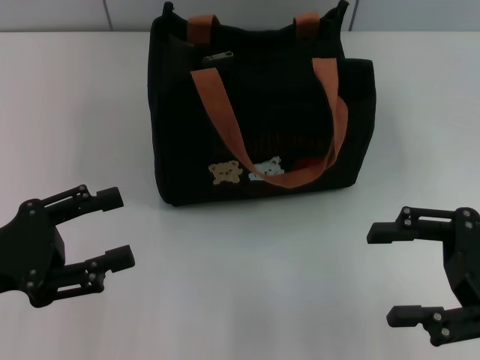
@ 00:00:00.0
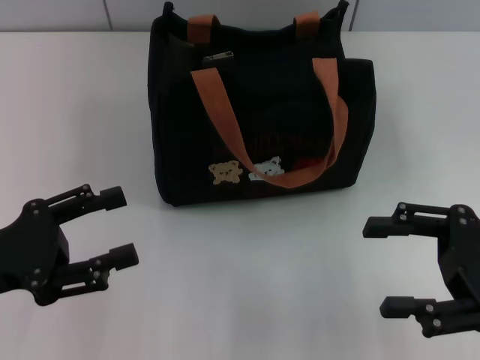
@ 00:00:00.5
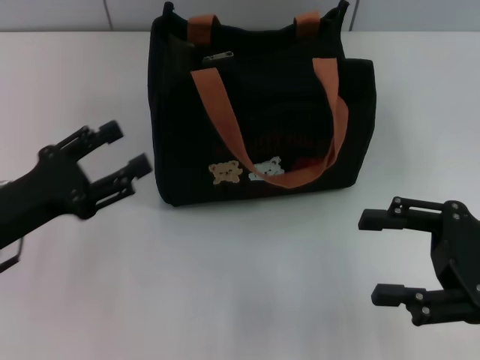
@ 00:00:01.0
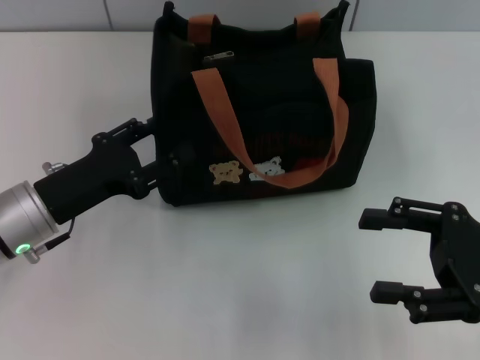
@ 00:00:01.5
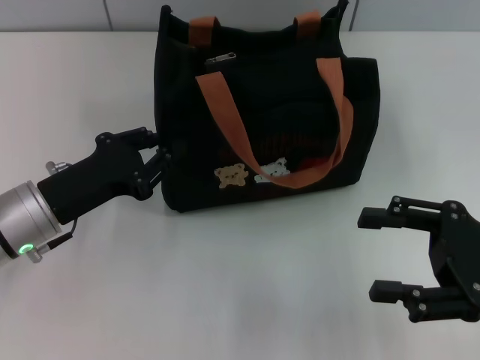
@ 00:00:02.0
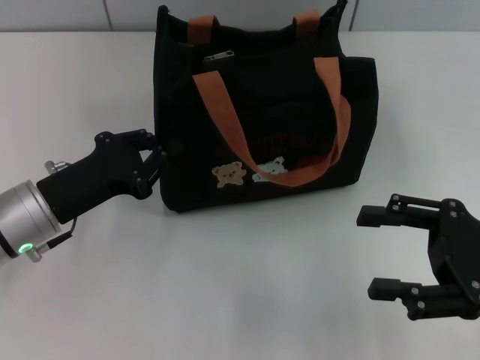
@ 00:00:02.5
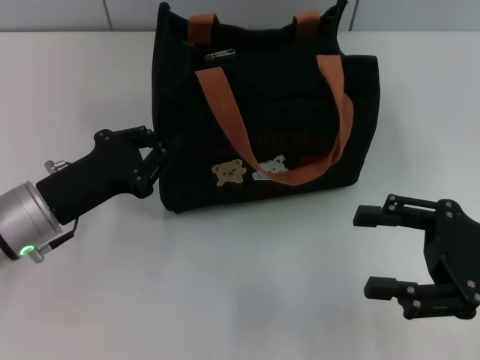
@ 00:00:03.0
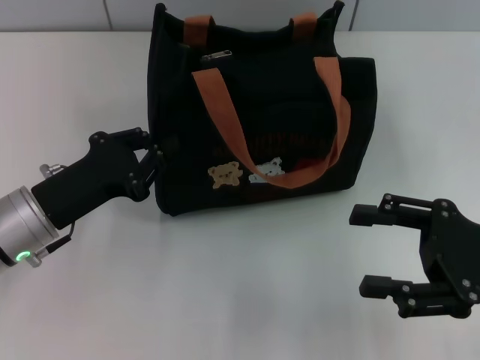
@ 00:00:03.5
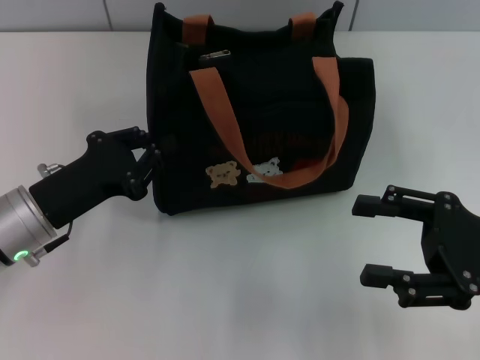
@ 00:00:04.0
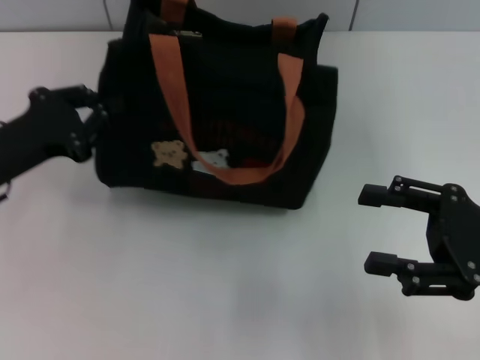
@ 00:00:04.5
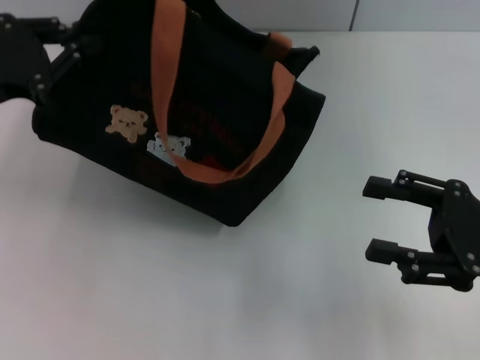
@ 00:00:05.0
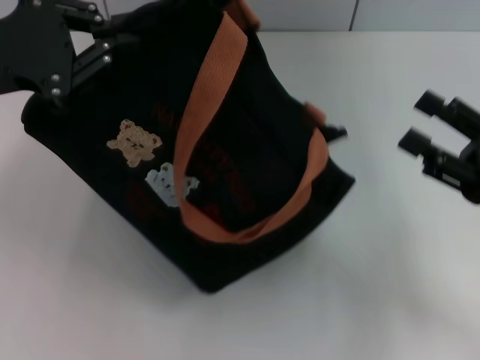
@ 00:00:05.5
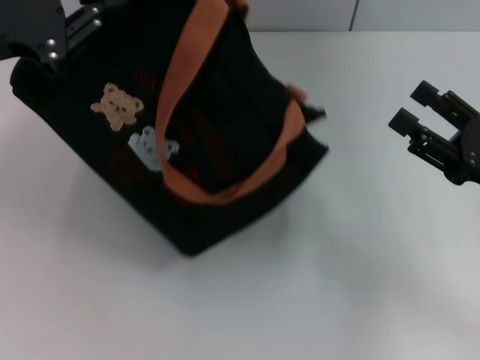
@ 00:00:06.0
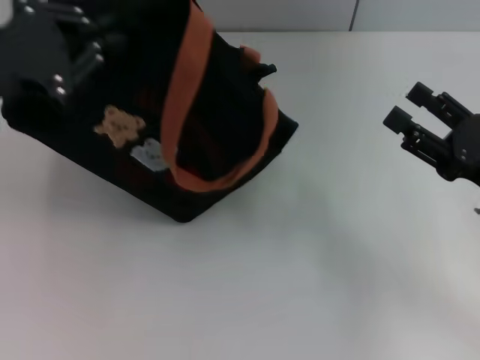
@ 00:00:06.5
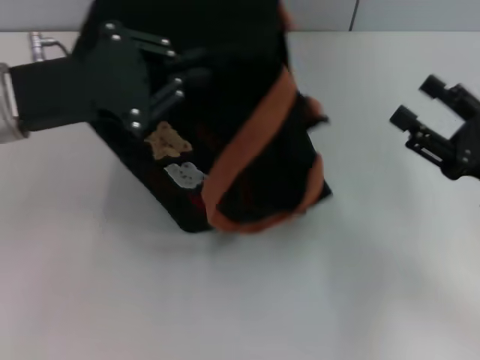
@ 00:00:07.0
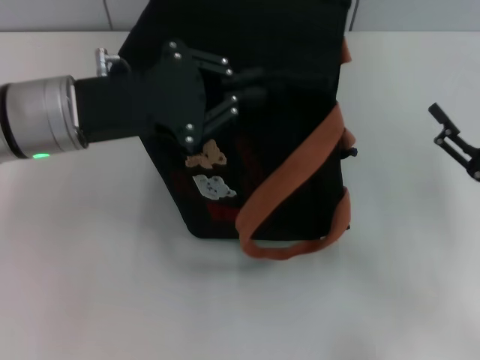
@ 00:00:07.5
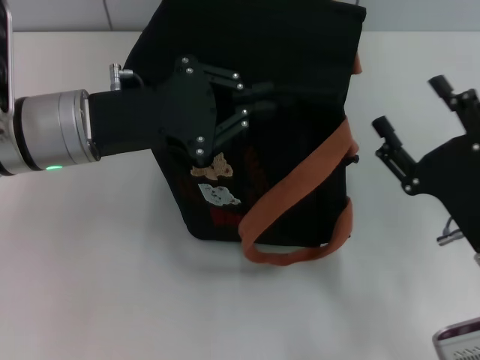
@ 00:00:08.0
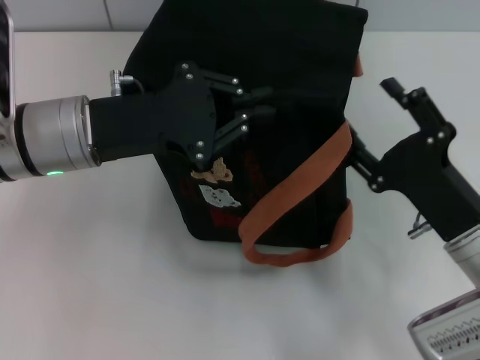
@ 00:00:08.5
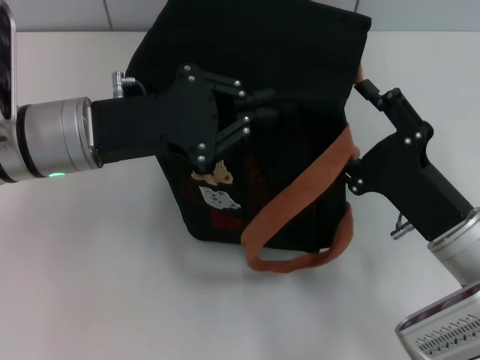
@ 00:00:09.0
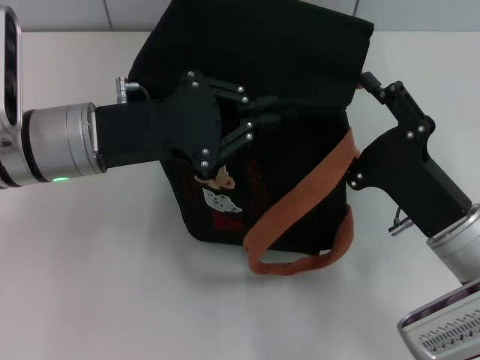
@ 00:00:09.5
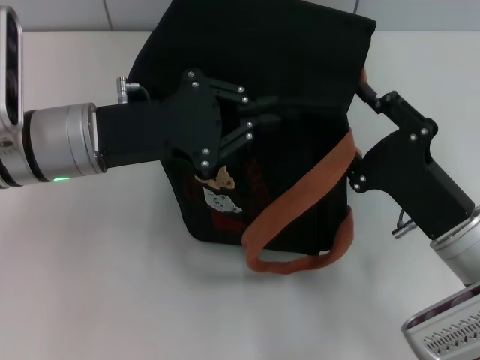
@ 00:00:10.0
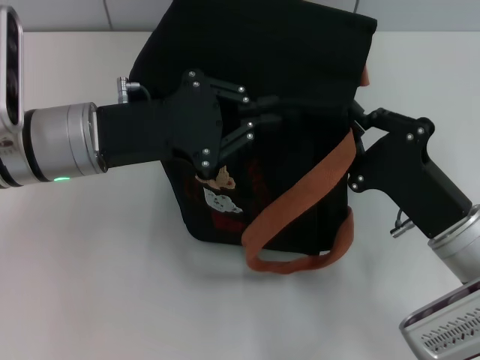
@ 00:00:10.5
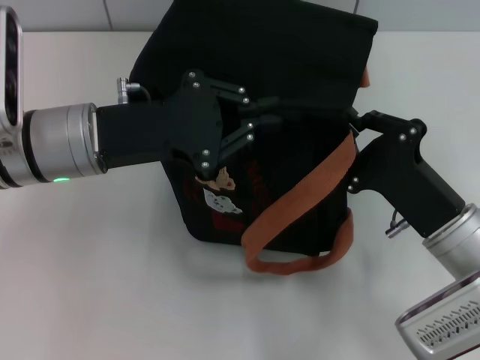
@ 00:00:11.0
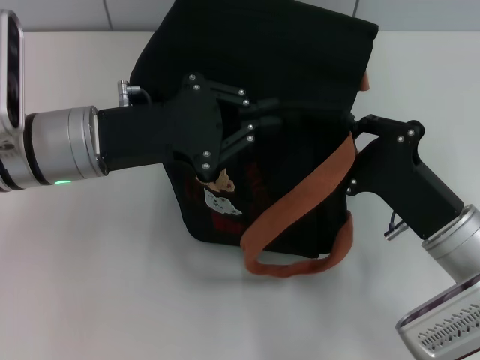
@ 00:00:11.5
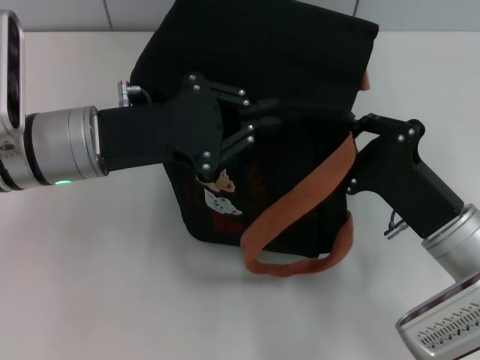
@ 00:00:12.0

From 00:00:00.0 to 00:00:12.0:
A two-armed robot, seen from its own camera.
From 00:00:00.0 to 00:00:02.0: The left gripper is displaced forward and to the right by about 10 cm, and closes.
From 00:00:02.0 to 00:00:04.0: The left gripper closes up.
From 00:00:04.0 to 00:00:06.0: The left gripper moves upward, about 15 cm.
From 00:00:06.0 to 00:00:08.0: The right gripper moves to the left, some 5 cm. Meanwhile the left gripper is displaced to the right and downward by approximately 10 cm.
From 00:00:10.0 to 00:00:12.0: The right gripper closes up.

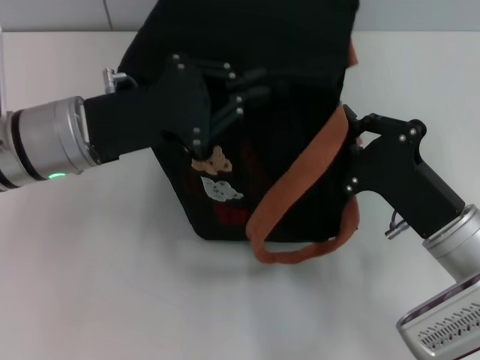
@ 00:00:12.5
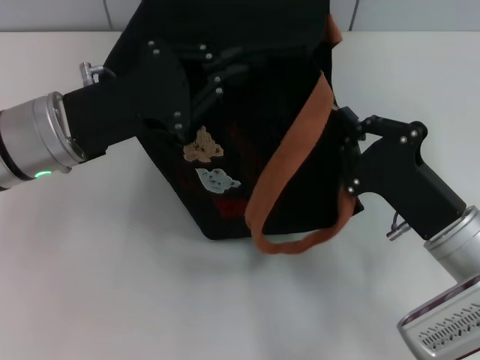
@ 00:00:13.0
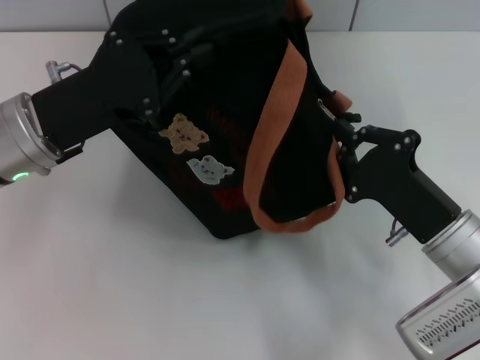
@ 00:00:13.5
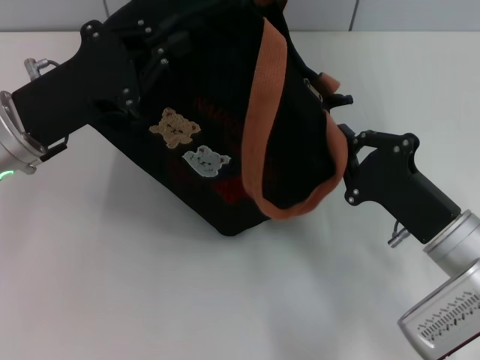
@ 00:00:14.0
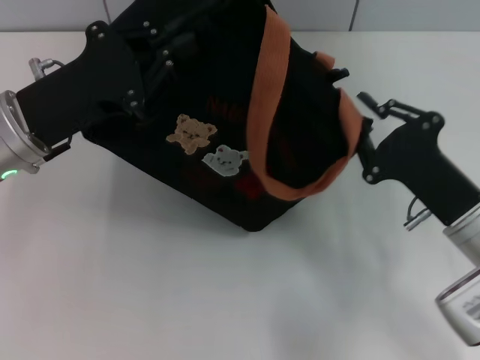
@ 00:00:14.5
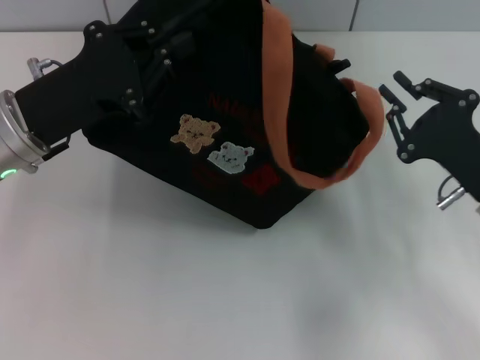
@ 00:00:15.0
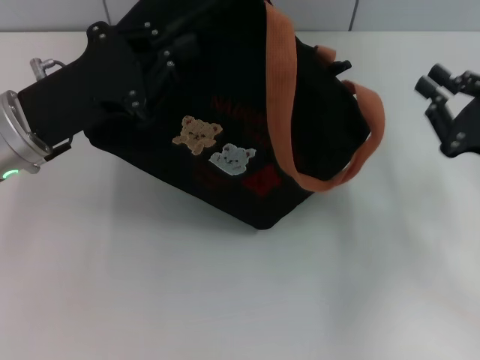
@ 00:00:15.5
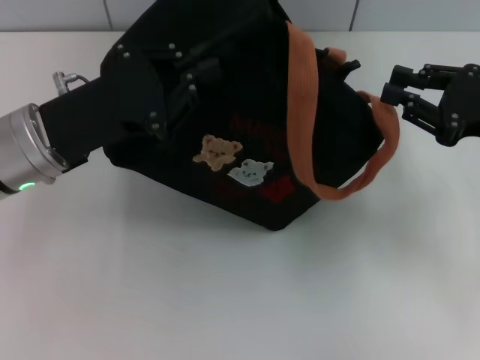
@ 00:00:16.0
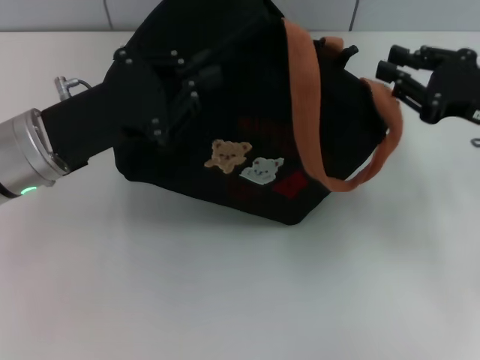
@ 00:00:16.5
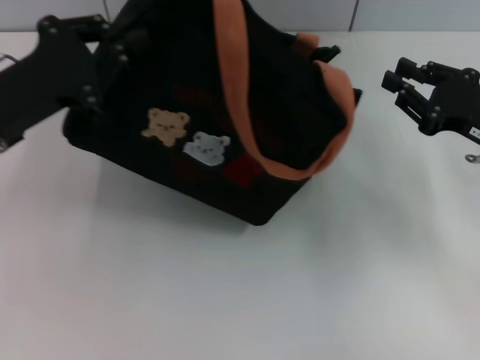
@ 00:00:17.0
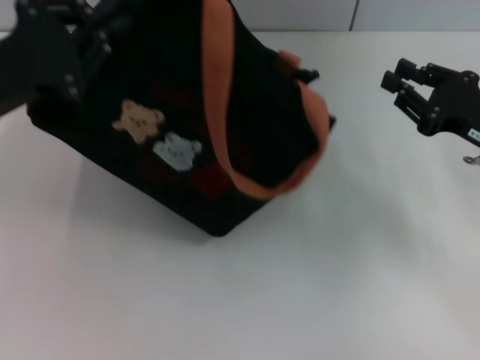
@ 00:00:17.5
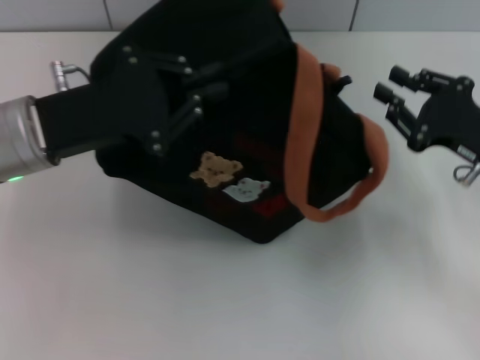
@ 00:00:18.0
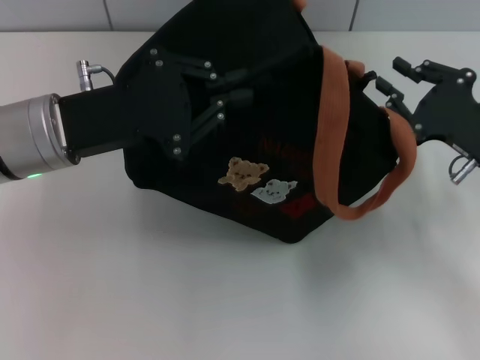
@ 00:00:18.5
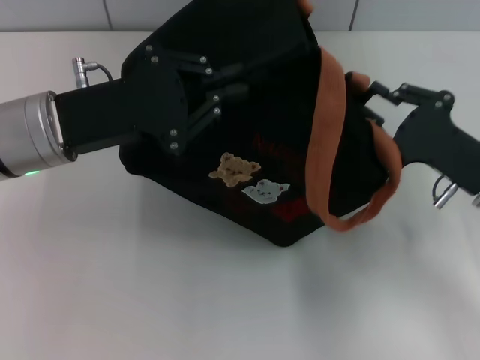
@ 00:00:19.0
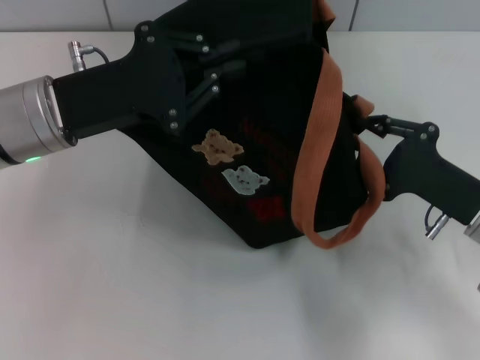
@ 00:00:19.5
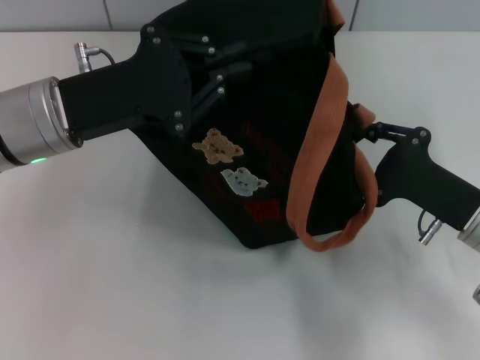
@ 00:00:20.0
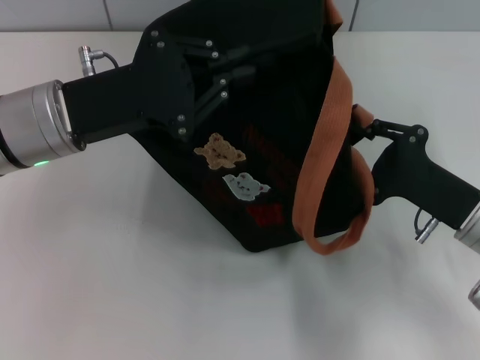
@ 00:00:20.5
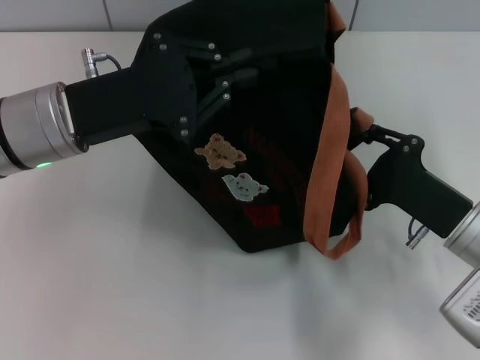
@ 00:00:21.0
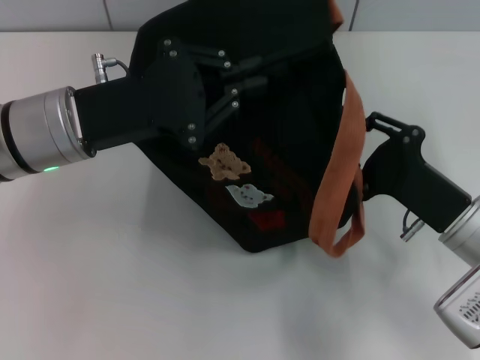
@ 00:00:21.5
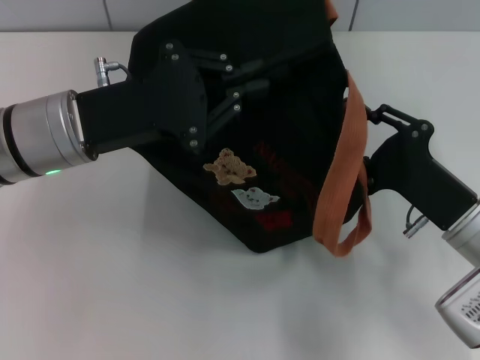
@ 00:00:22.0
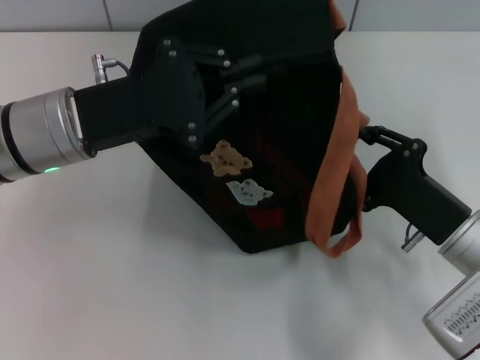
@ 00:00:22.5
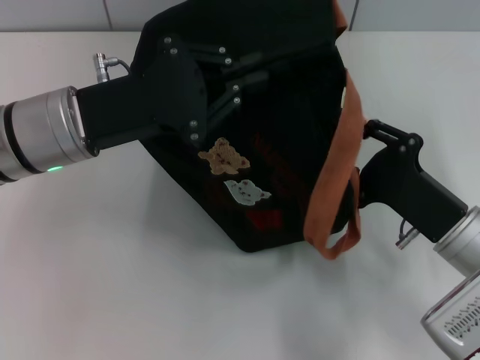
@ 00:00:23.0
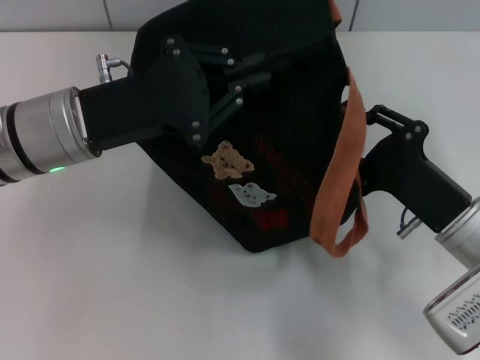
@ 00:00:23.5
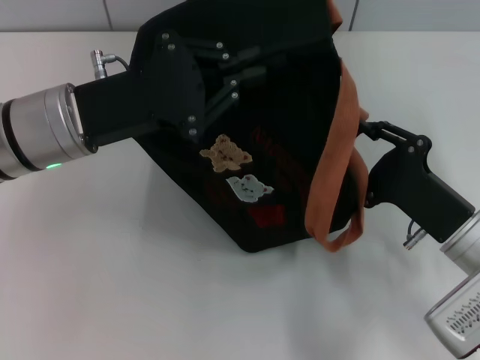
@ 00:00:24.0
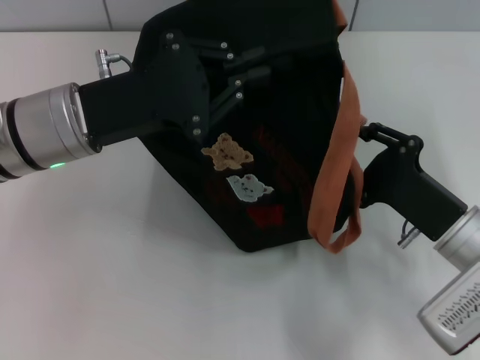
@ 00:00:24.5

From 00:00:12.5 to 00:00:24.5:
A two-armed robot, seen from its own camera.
From 00:00:14.5 to 00:00:16.5: The right gripper shifts some 15 cm forward, to the right and upward.
From 00:00:16.5 to 00:00:18.5: The right gripper ends up about 5 cm from where it was.
From 00:00:18.5 to 00:00:20.5: The right gripper changes place by approximately 5 cm.
From 00:00:20.5 to 00:00:24.5: There are only small adjustments of the grippers.

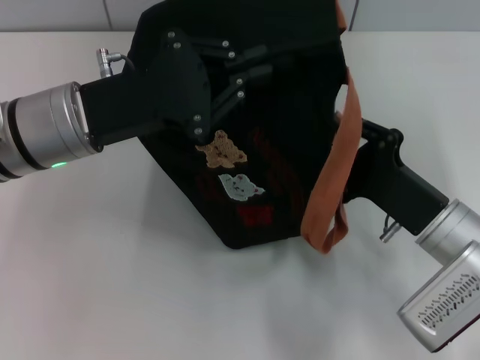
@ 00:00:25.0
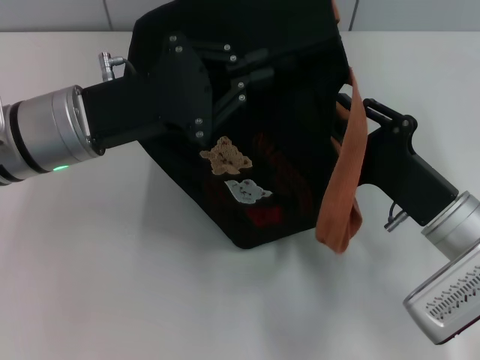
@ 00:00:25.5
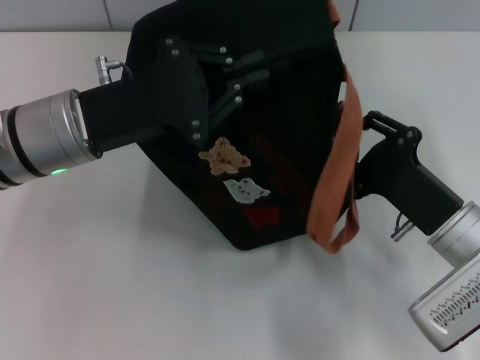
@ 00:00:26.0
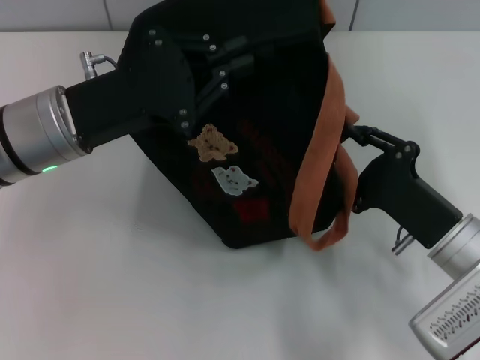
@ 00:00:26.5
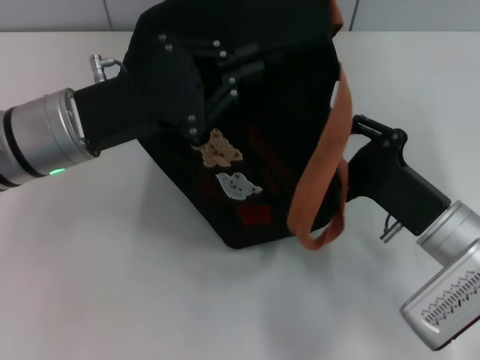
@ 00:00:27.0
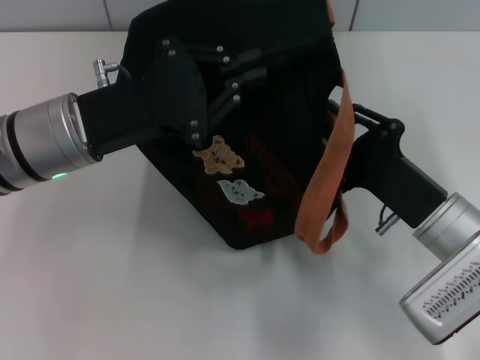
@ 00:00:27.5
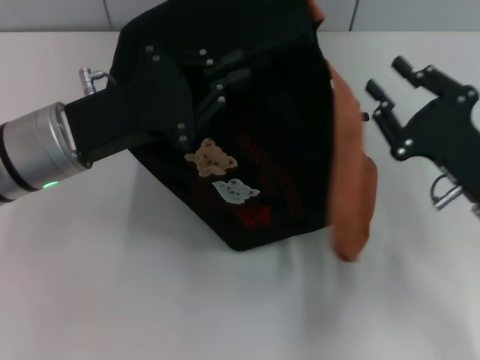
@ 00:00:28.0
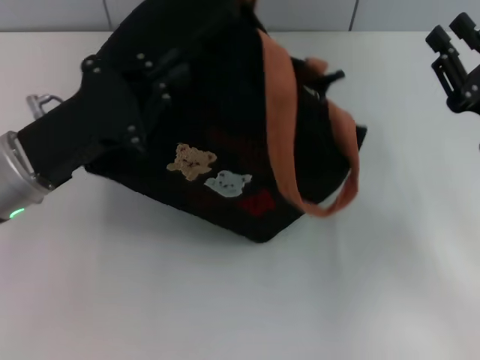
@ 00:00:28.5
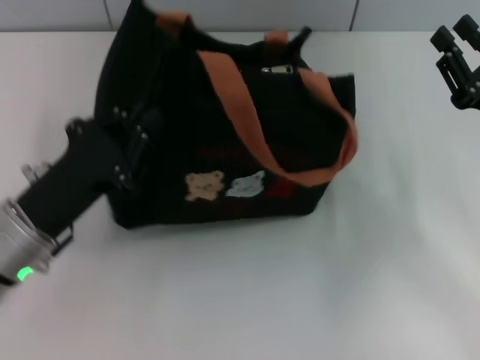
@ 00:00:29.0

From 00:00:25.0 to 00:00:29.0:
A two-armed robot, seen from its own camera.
Step, from 00:00:25.0 to 00:00:27.5: Pull open the zipper with your right hand.
From 00:00:25.0 to 00:00:27.0: The grippers move only a little.
From 00:00:27.0 to 00:00:29.0: The left gripper goes some 10 cm downward and backward, while the right gripper is displaced to the right by about 10 cm.
